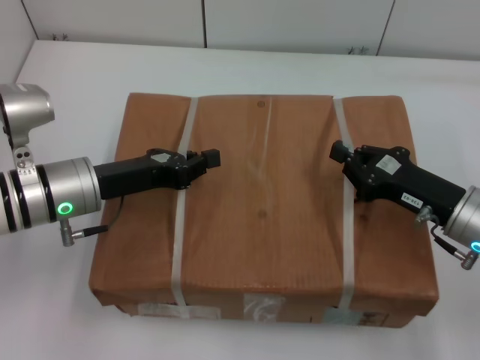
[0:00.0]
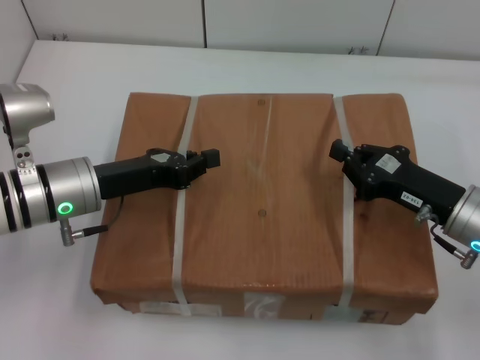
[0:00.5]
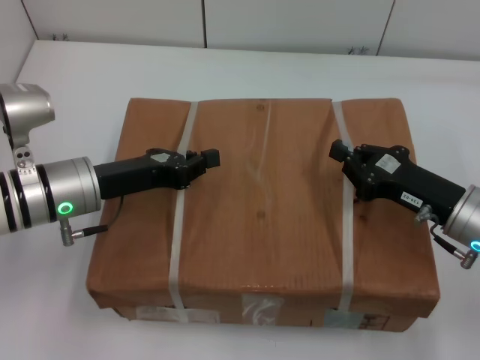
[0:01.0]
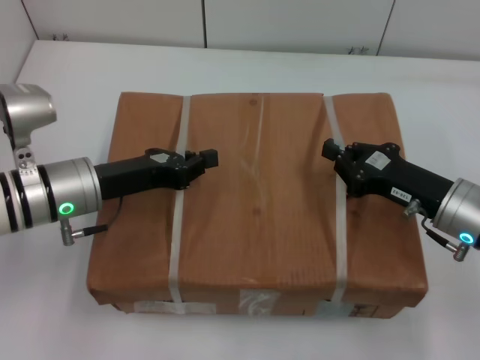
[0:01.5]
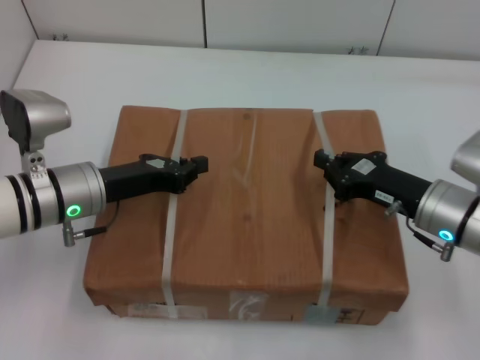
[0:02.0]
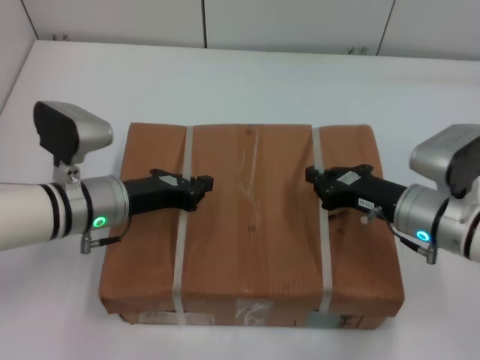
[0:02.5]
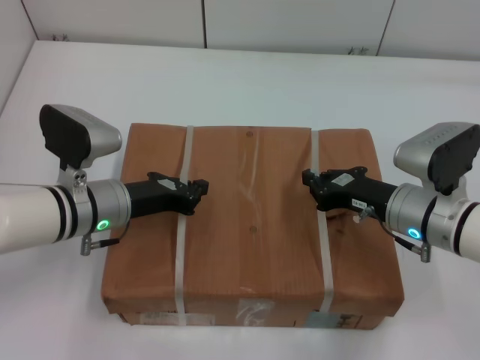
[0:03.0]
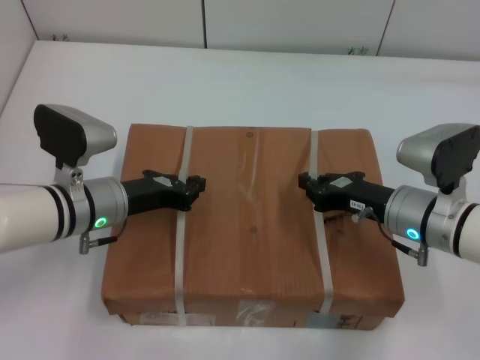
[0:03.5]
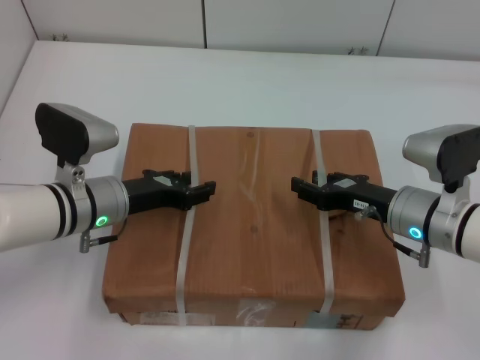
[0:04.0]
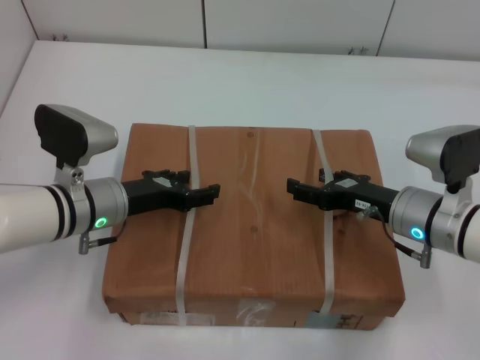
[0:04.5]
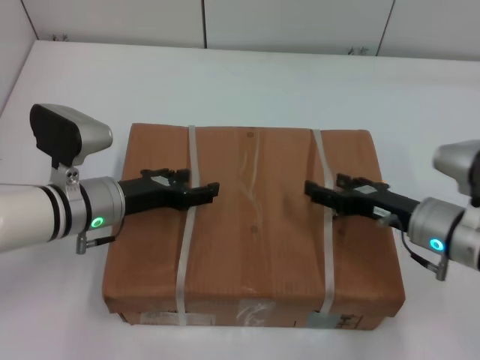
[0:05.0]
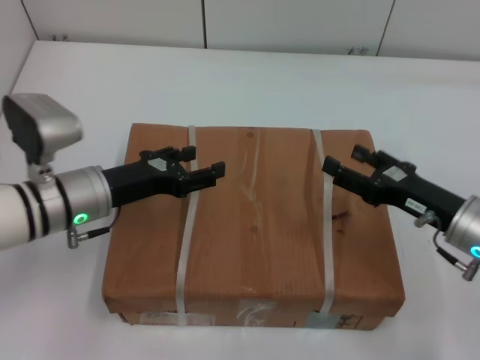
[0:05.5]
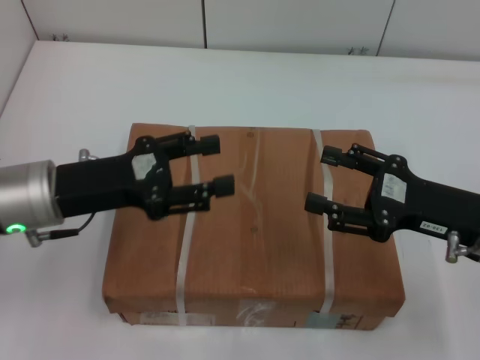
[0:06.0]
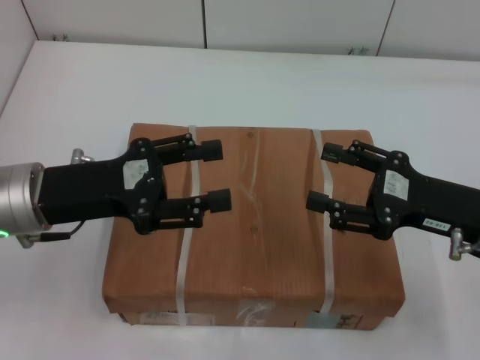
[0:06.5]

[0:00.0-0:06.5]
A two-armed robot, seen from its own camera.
Task of the whole recording: place the box on the table with both arms.
Step, 0:00.0 to 0:02.5: Place the box on the table with left gripper.
Step, 0:00.0 to 0:02.5: Place the box on the table with right gripper.
Step, 0:03.0 to 0:04.5: Loosen the box on the table with left gripper.
Step, 0:03.0 to 0:04.5: Loosen the box on the table with right gripper.
0:00.0 to 0:02.0: There are only small adjustments of the grippers.
0:02.0 to 0:04.5: The left gripper opens, while the right gripper opens its fingers.
0:04.5 to 0:06.5: The left gripper is displaced upward and backward by roughly 10 cm. The right gripper heads upward, covering approximately 5 cm.
